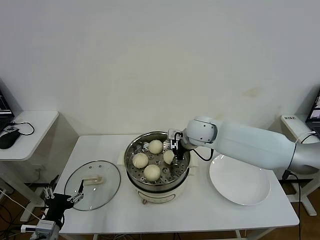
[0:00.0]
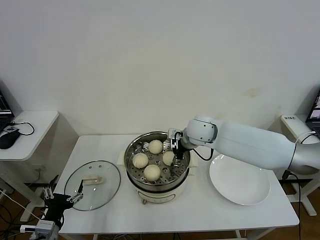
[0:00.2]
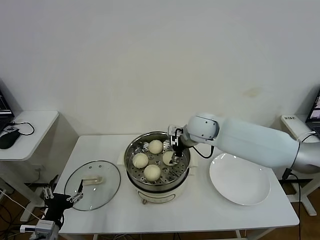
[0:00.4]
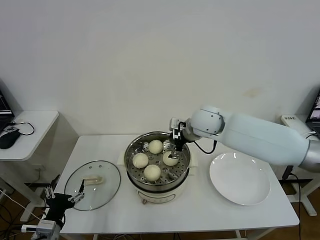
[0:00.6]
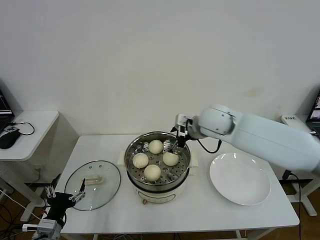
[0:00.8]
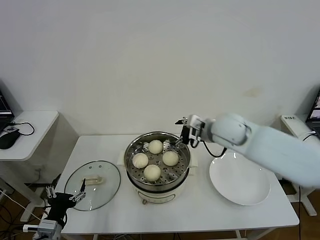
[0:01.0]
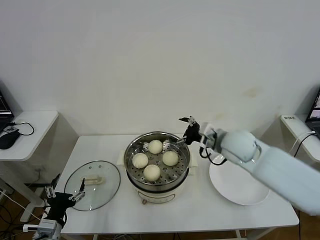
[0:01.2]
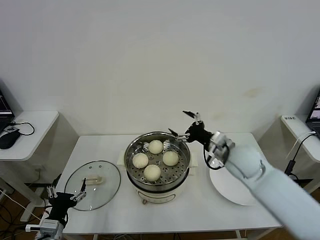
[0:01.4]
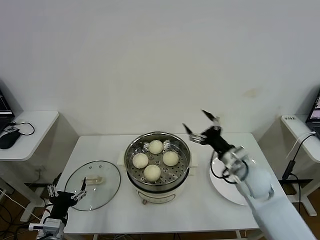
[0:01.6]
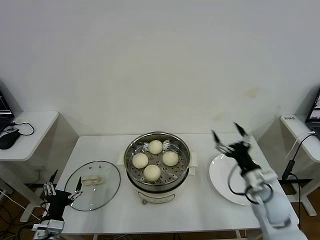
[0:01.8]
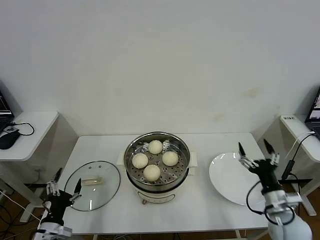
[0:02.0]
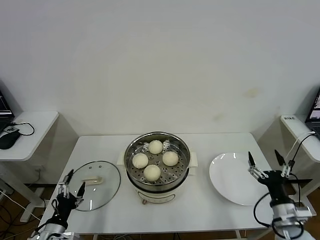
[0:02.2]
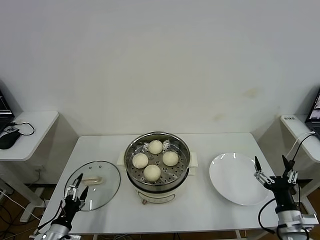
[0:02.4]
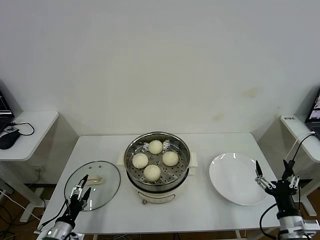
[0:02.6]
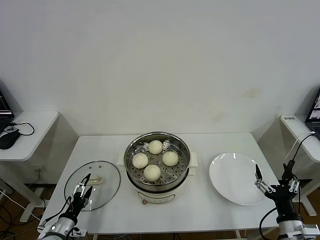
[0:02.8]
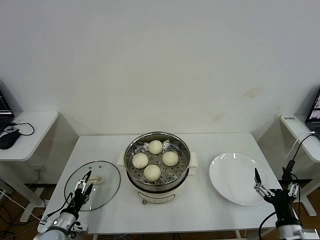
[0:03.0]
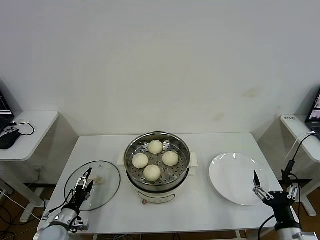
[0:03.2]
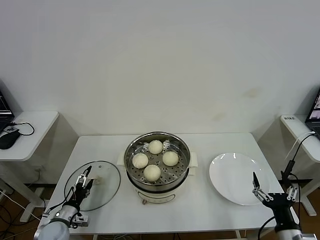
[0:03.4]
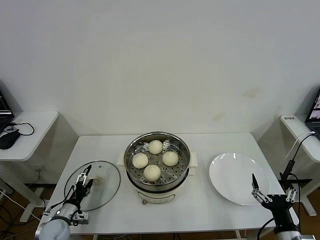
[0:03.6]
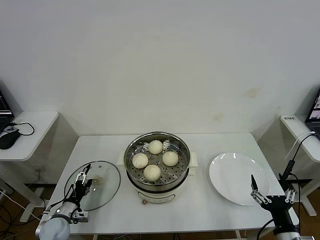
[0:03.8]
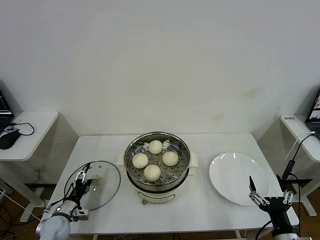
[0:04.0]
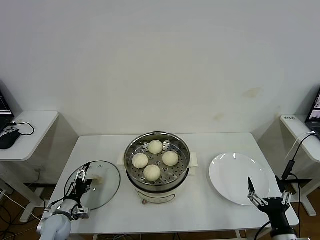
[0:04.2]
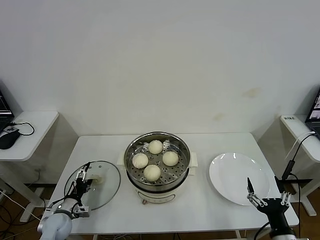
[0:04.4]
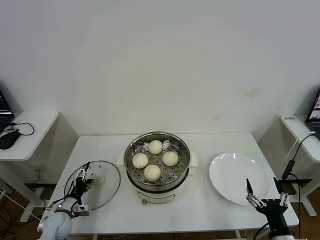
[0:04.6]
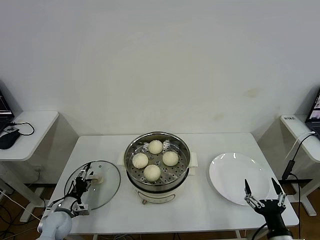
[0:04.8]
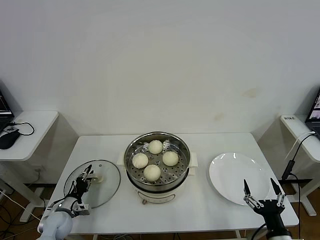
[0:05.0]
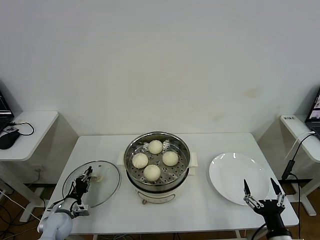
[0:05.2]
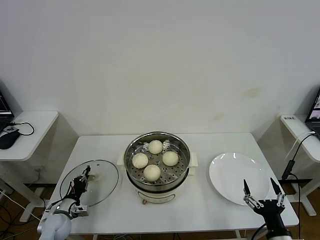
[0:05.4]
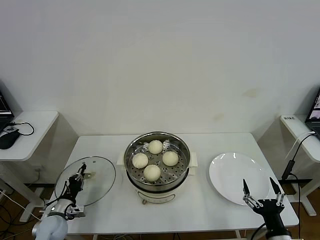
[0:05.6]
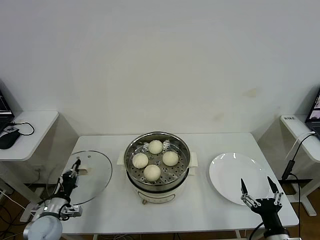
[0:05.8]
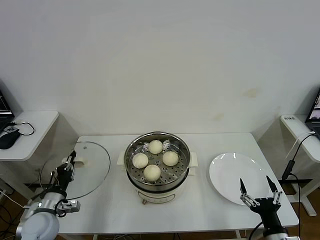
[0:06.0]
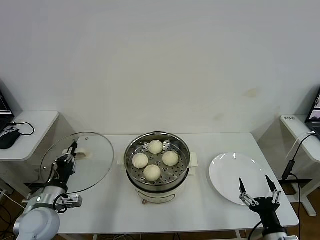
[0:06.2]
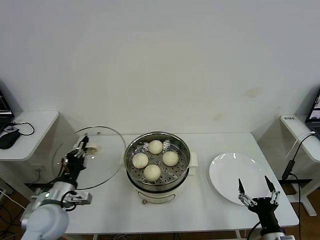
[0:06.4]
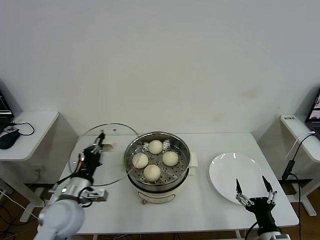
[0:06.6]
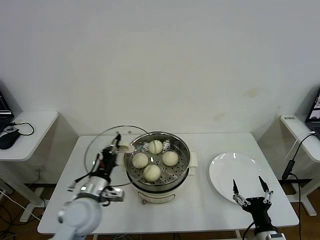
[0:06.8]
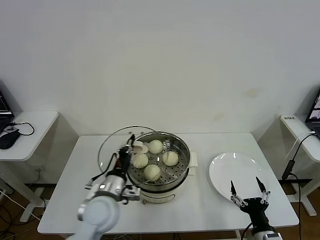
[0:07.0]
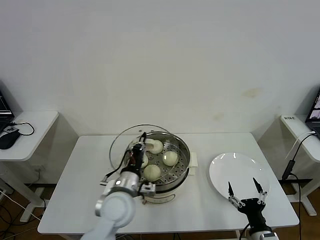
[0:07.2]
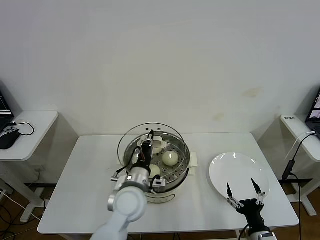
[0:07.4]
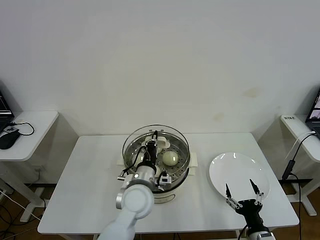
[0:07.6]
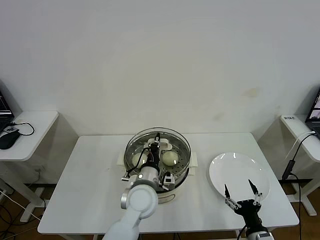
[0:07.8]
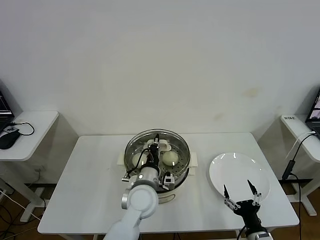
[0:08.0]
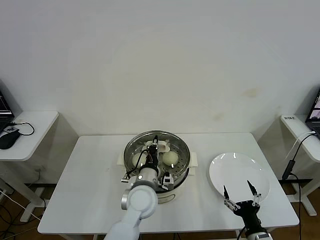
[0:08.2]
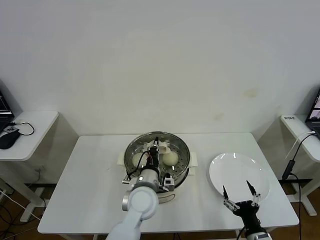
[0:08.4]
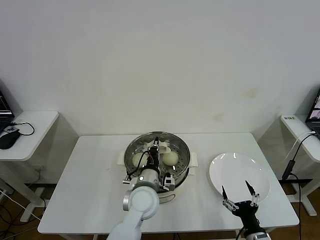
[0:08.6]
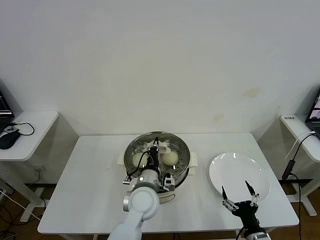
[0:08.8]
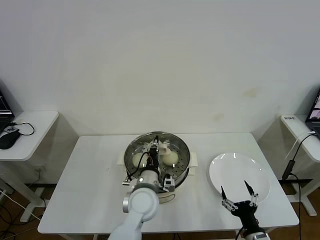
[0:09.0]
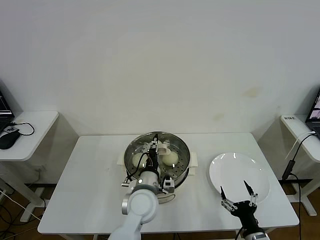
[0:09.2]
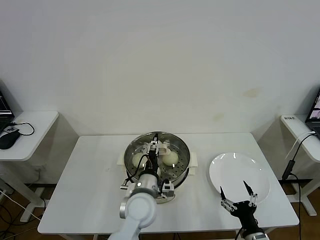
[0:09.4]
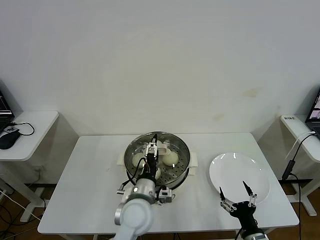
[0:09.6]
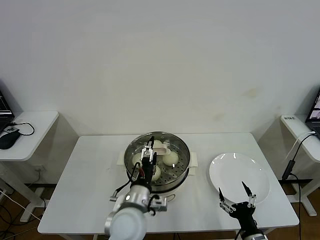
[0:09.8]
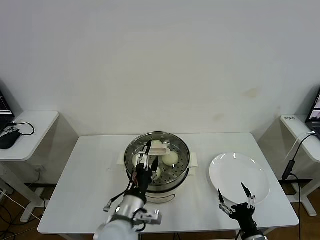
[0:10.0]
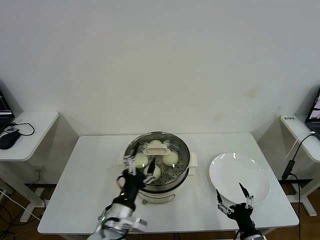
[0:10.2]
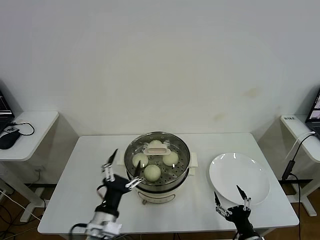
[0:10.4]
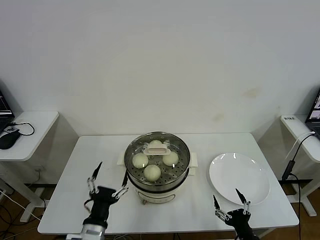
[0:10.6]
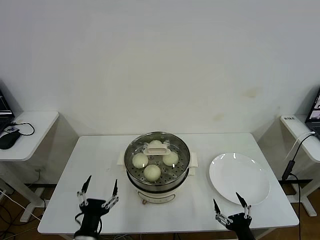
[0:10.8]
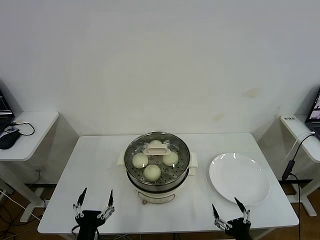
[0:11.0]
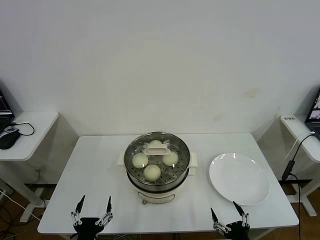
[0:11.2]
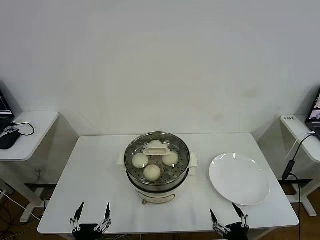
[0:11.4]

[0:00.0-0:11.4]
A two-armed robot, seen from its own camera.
Task of the whole recording: take steamed baozi put them in steamer then cover it.
Step, 0:00.6 to 0:05.4: Grasp the pot lid with left gripper.
Step, 0:05.6 to 0:09.4: Place the pot lid on the steamer with left gripper.
0:00.0 to 0:01.4: The right gripper moves to the right and backward, approximately 15 cm, and opens.
0:01.4 to 0:02.8: The left gripper heads downward, covering about 10 cm, while the right gripper shifts approximately 30 cm backward, to the right and downward.
0:02.8 to 0:04.2: The left gripper travels forward by about 10 cm.
0:04.2 to 0:05.6: The left gripper closes up.
0:05.6 to 0:07.2: The left gripper shifts approximately 30 cm to the right and upward.
0:07.2 to 0:08.6: The left gripper moves to the right, approximately 10 cm.
0:08.6 to 0:10.0: The left gripper moves backward, approximately 10 cm, and opens.
0:10.0 to 0:11.4: The left gripper heads backward, to the left and downward, covering some 20 cm.
